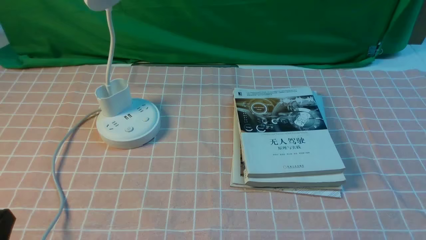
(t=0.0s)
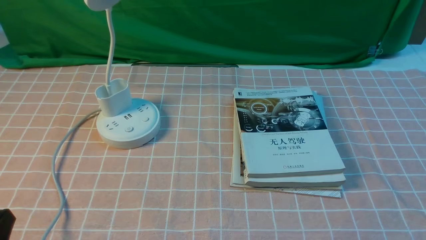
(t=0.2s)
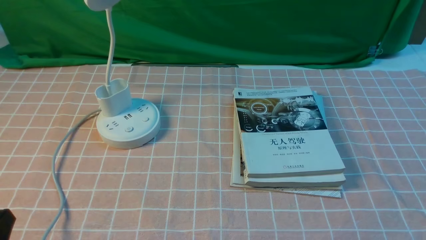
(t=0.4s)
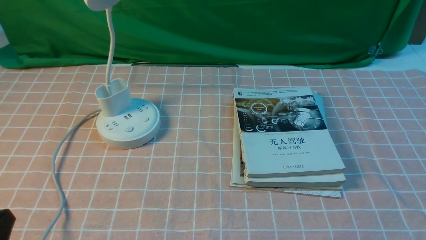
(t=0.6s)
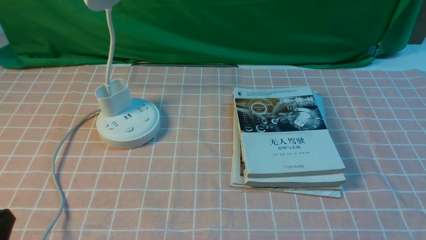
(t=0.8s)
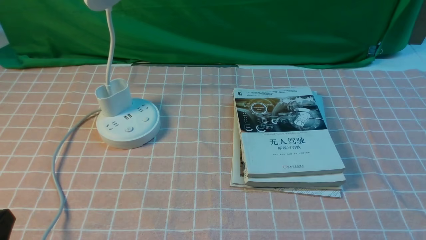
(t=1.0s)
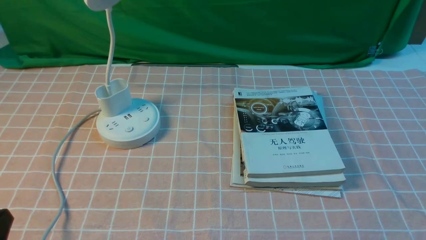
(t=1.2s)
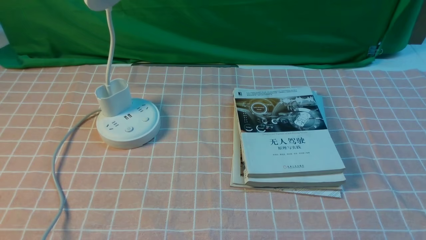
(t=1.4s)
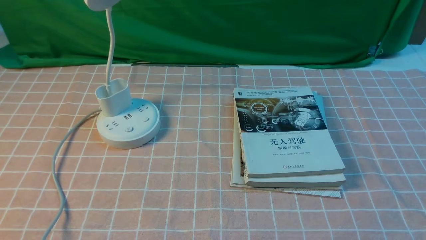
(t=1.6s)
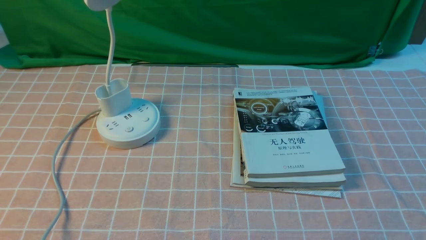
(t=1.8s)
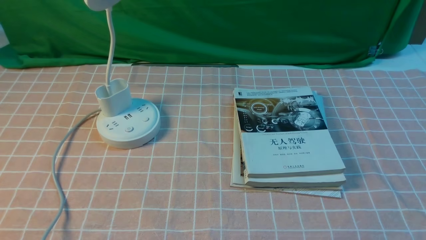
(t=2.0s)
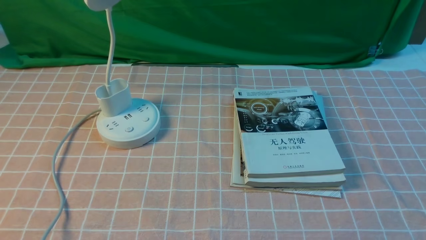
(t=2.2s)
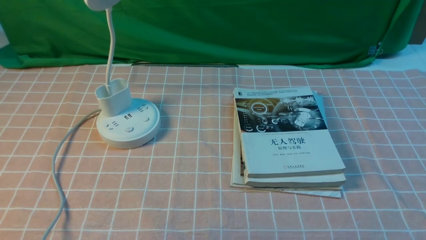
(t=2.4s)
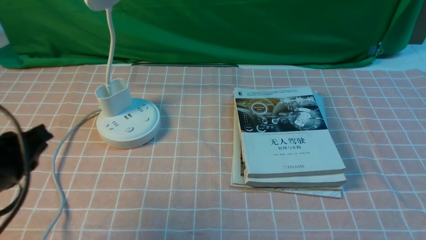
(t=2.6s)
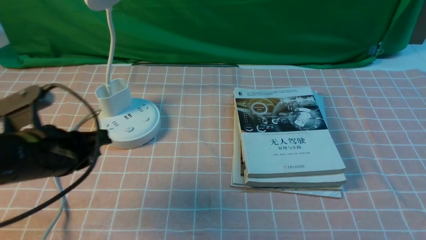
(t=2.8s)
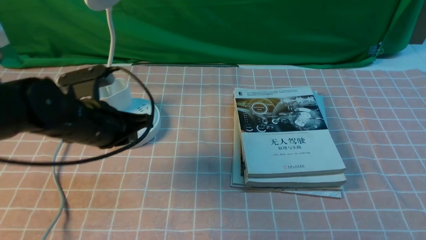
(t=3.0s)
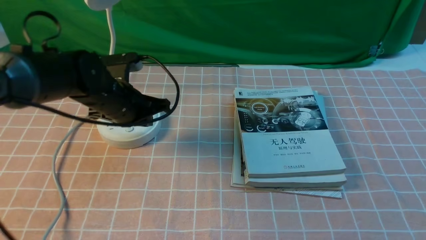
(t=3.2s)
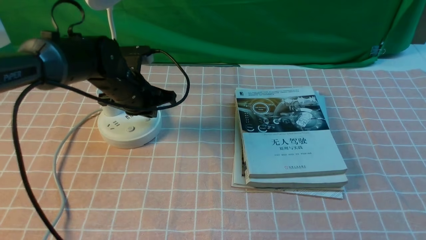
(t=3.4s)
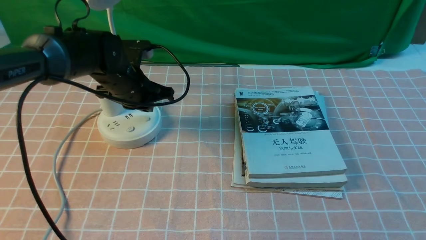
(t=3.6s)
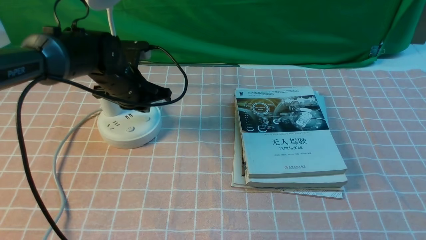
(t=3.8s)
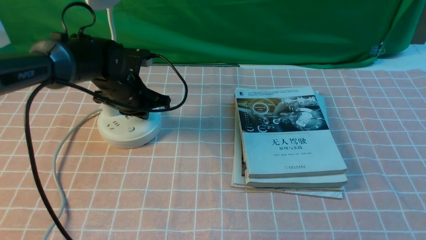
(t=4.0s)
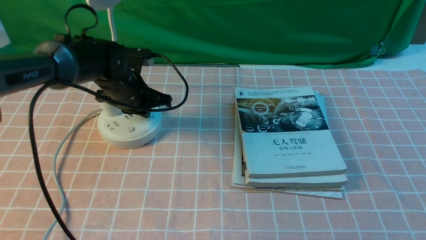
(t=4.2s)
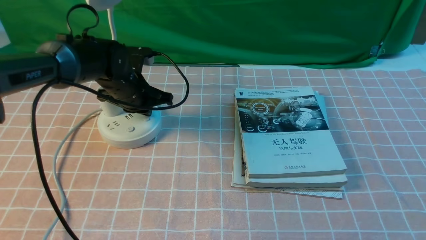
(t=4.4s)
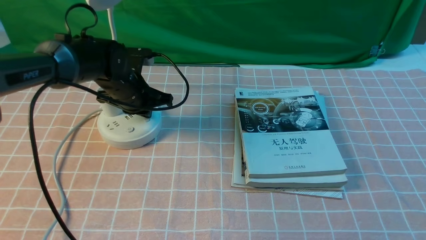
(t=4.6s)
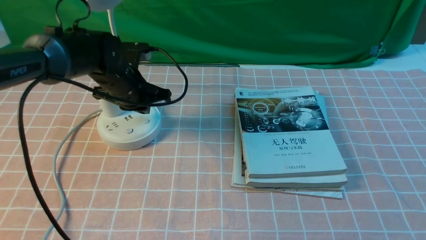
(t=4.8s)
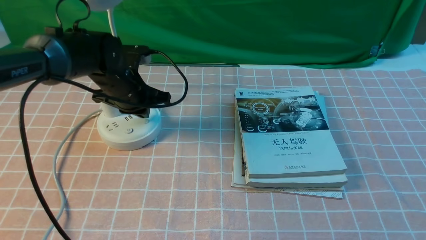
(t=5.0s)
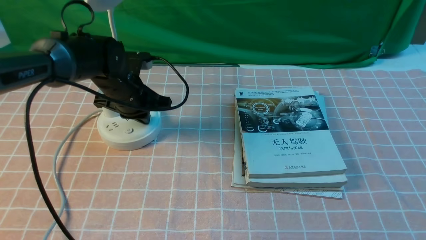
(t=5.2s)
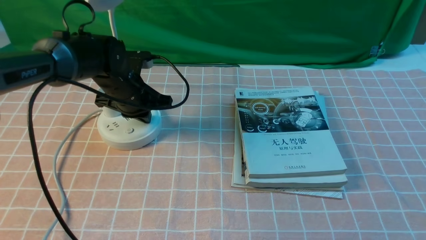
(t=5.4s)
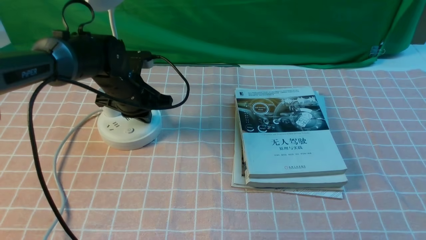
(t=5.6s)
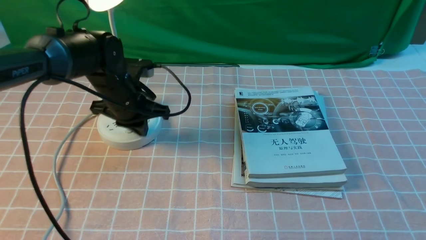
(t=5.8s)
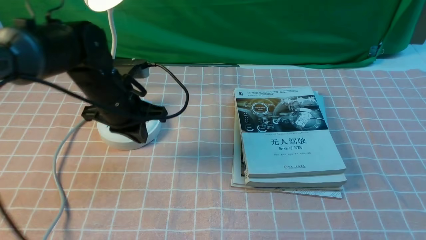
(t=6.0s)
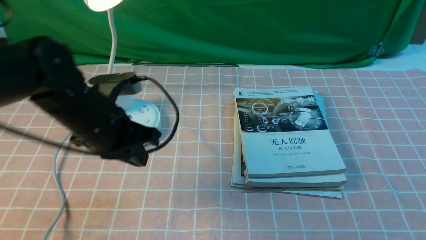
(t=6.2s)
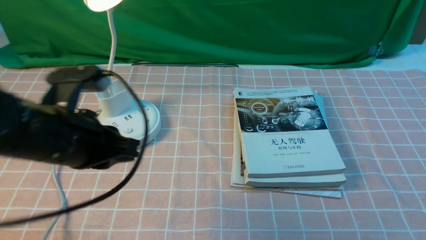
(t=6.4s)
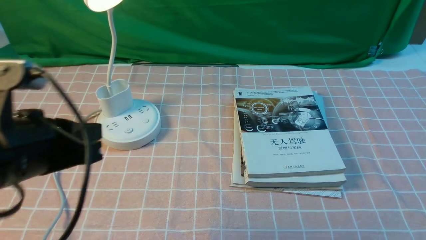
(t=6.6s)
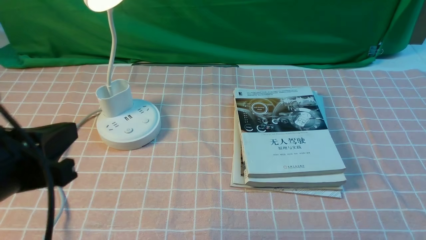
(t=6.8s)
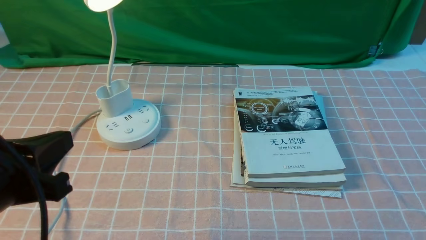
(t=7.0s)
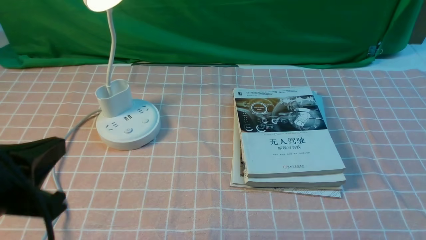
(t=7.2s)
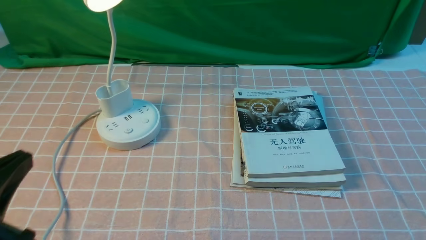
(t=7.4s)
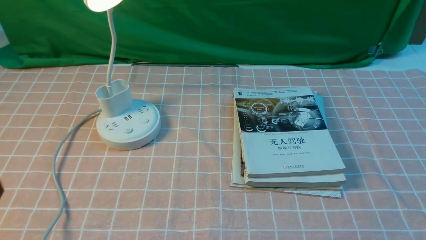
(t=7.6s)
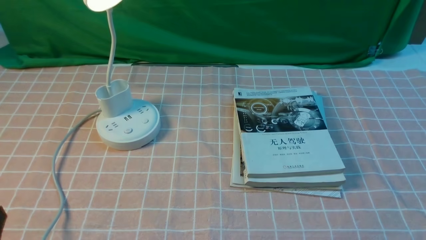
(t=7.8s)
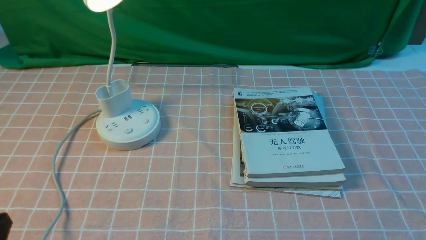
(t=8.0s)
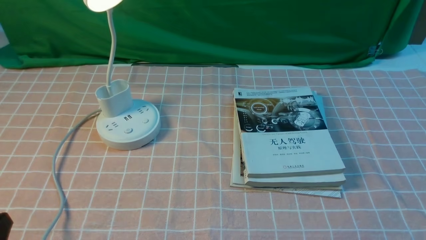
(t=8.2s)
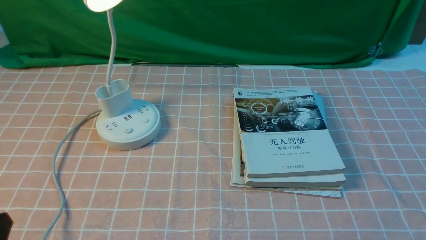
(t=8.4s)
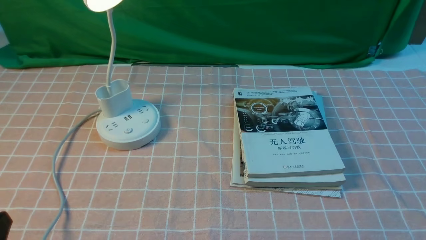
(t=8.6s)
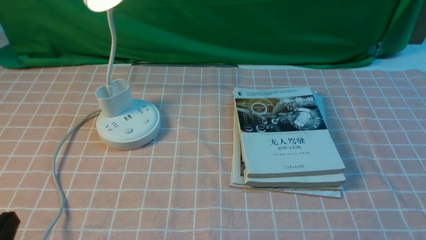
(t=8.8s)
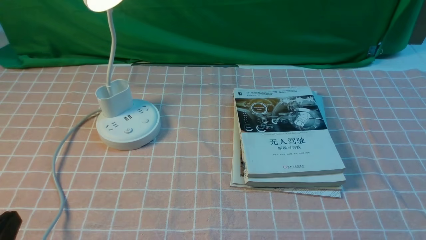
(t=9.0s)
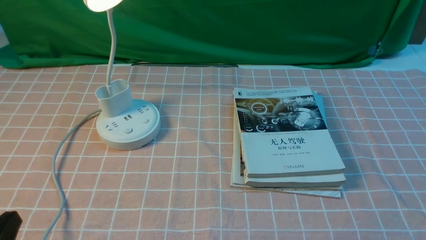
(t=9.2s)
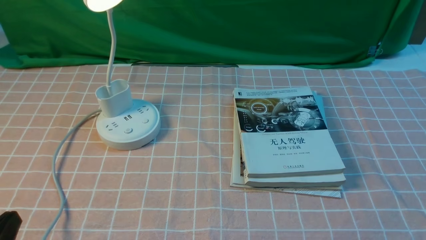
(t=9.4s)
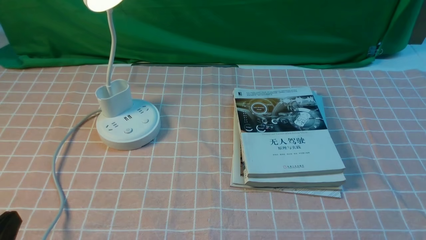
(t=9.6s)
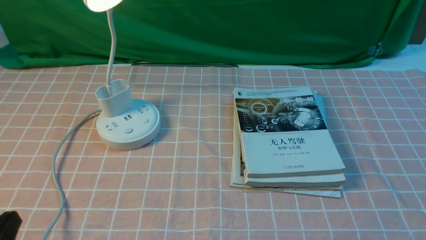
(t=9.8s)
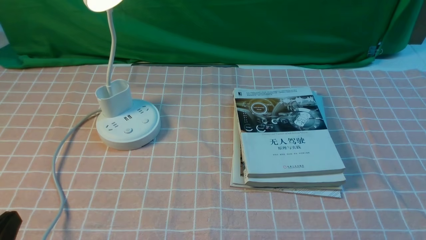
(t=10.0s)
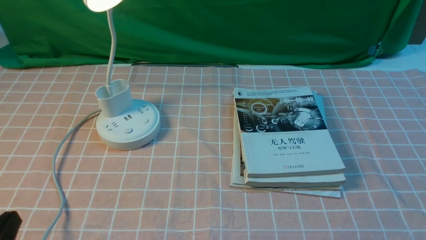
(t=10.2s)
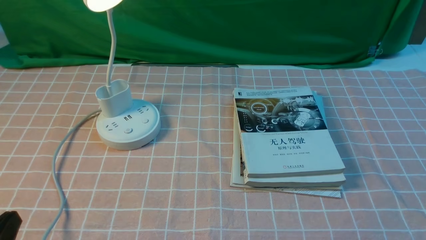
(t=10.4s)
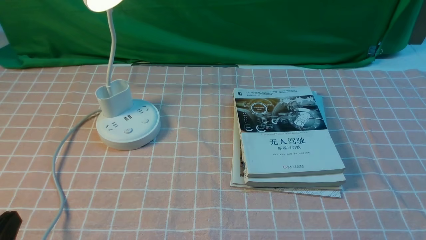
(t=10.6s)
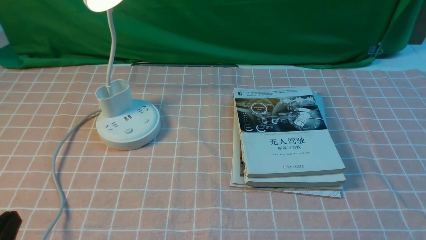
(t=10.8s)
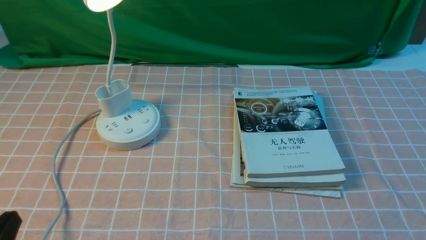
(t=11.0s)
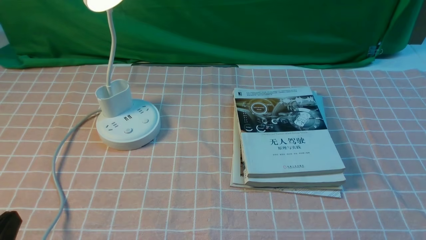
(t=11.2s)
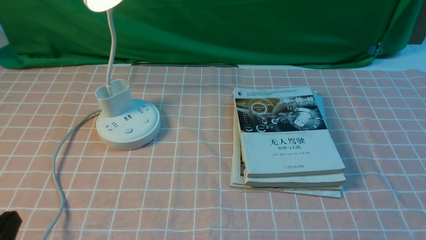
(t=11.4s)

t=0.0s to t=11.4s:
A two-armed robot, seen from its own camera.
Step, t=0.0s to t=5.8s: use the left arm to press the button switch on the lamp holder.
t=1.4s to t=2.8s: The left gripper is displaced forward by some 20 cm.
t=2.8s to t=4.2s: The left gripper is displaced forward by roughly 20 cm.
t=4.2s to t=5.6s: The grippers stay close to where they were, moving slightly.
t=5.6s to t=7.2s: The left gripper shifts some 30 cm backward.
t=7.2s to t=8.6s: The left gripper is displaced downward and backward by approximately 10 cm.
t=8.6s to t=11.4s: Neither gripper changes place.
